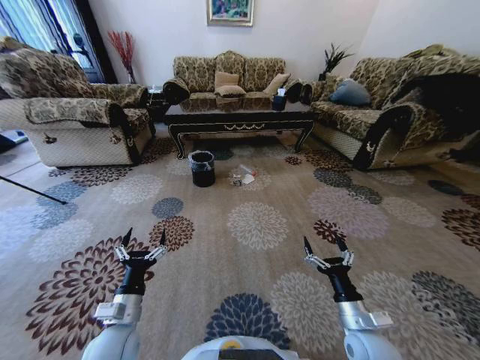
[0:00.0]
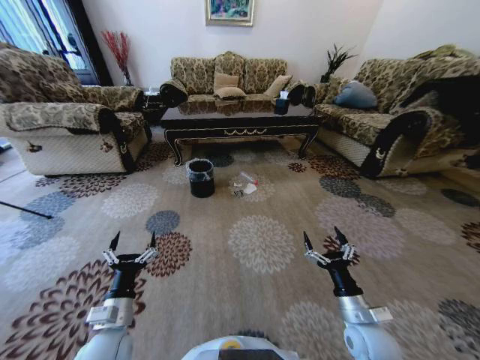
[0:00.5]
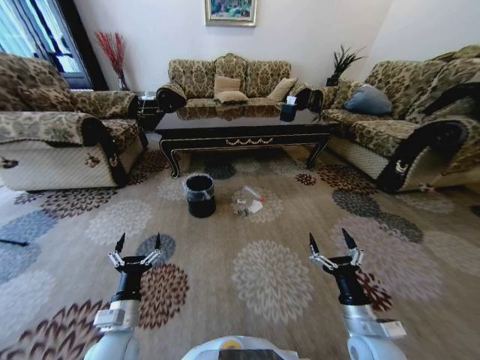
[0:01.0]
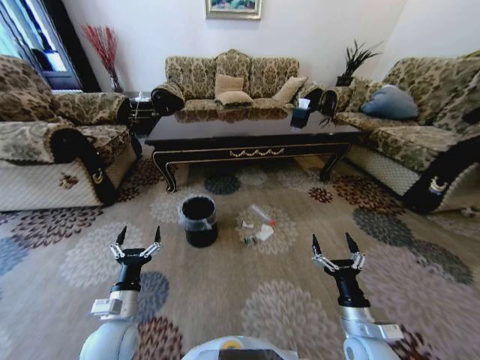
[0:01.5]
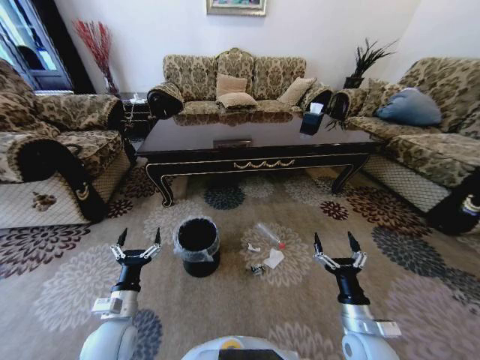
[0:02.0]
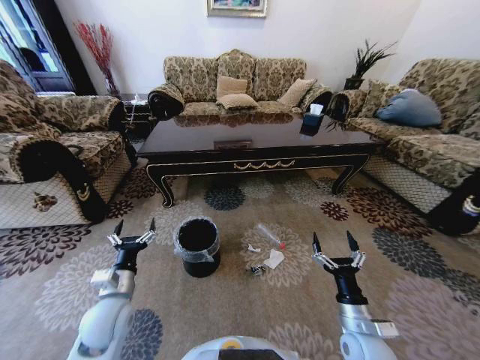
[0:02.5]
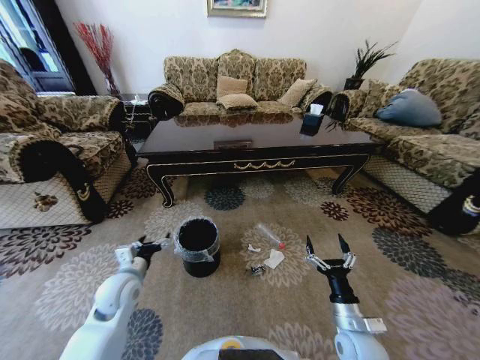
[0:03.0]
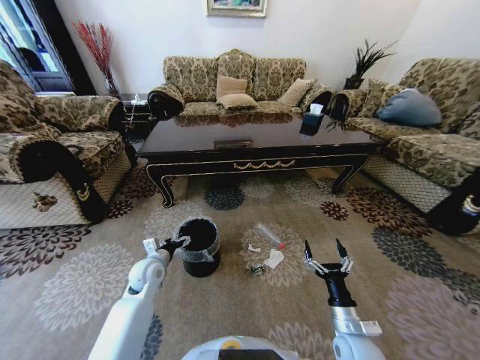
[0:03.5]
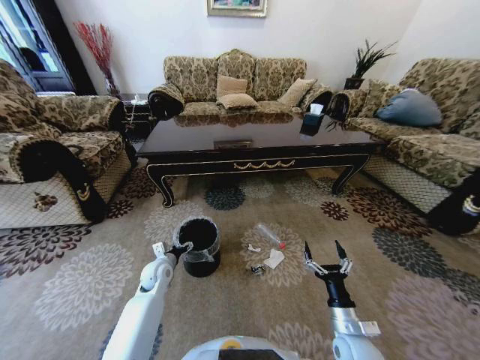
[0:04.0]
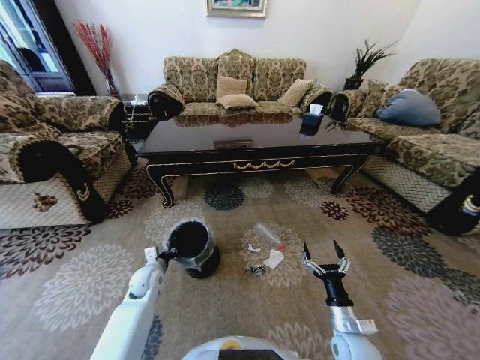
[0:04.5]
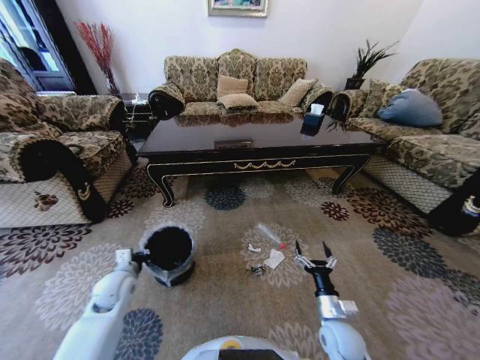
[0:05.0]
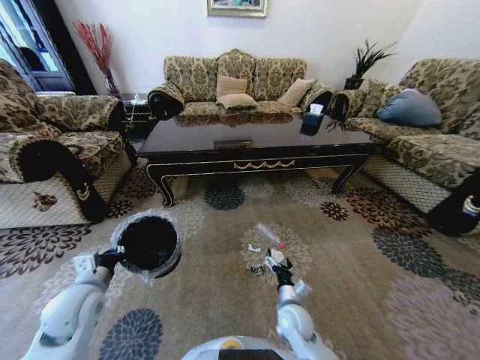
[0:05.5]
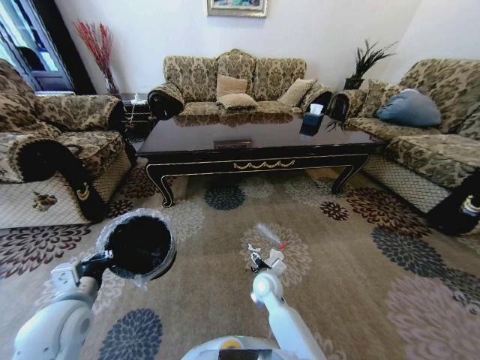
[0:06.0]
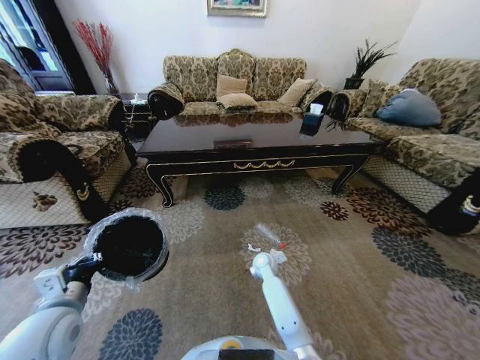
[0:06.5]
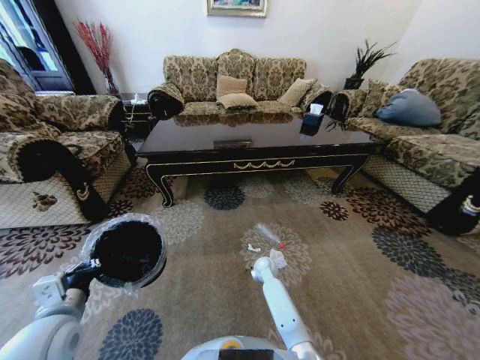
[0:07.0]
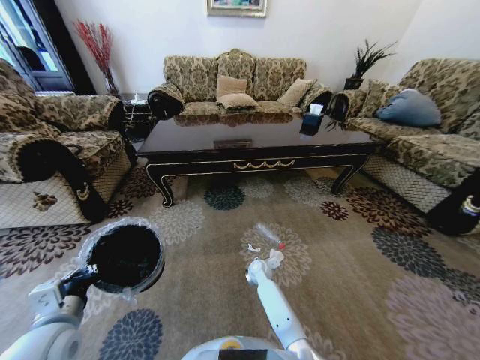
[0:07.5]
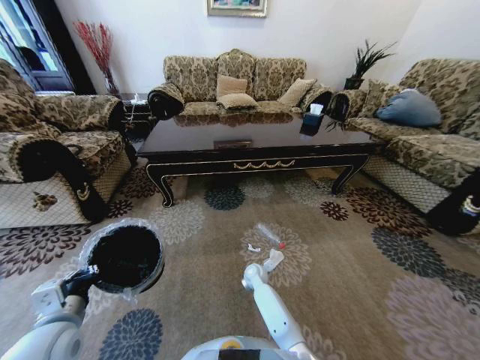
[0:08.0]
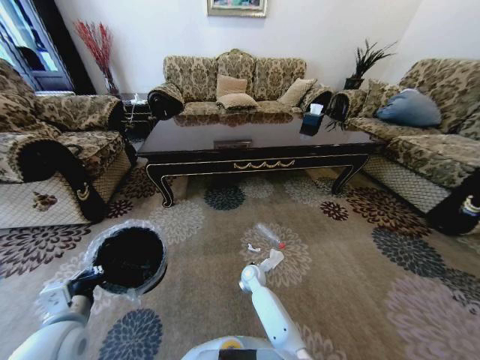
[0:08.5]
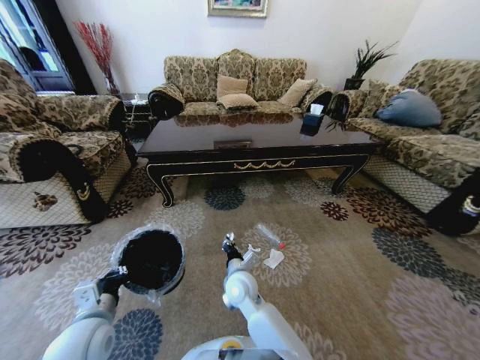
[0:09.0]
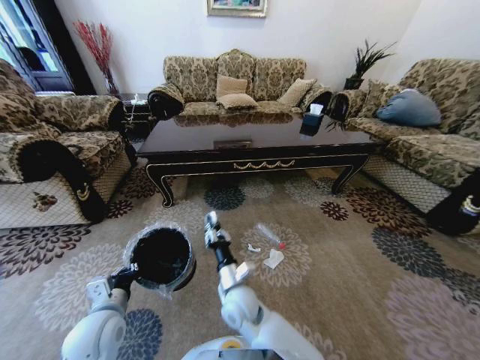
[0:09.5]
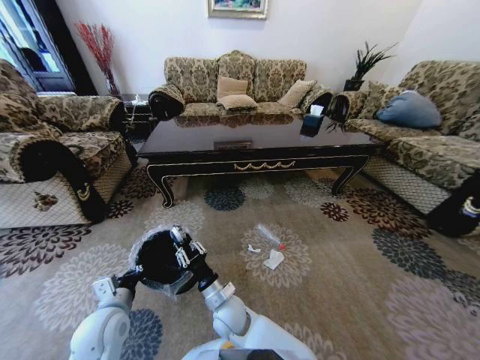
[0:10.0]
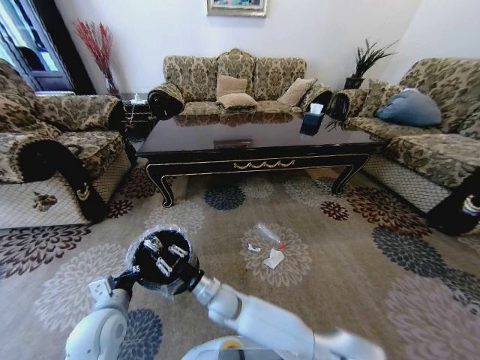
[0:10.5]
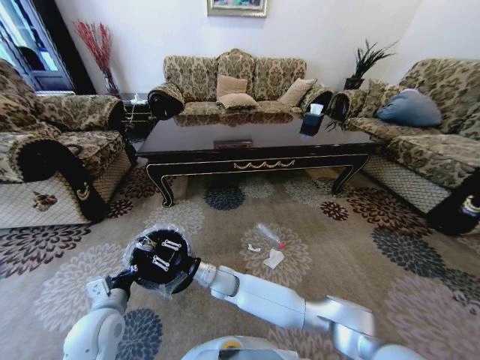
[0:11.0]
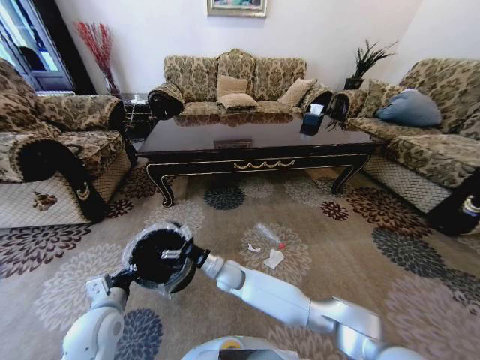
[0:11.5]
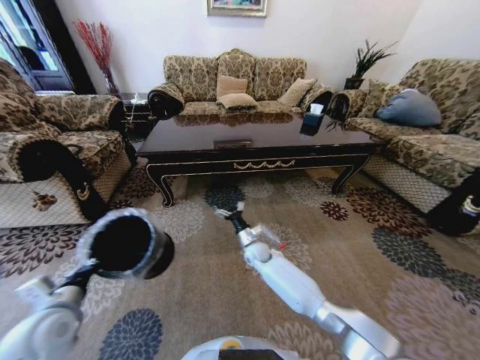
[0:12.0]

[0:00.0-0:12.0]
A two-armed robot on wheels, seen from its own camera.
Task of the whole recording: Move to the front of the table and pick up the trash from the floor, then place it into the trash bin.
2.0 to 4.0 s: The left gripper shifts roughly 20 cm forward.
4.0 to 6.0 s: The right gripper shifts roughly 25 cm to the left and forward, while the left gripper travels backward, upward and to the left by about 25 cm, and closes up.
6.0 to 8.0 s: The right gripper shifts approximately 10 cm downward and forward.
8.0 to 10.0 s: The right gripper travels backward, to the left and upward by some 25 cm, and closes up. Meanwhile the left gripper travels downward by some 5 cm.
10.0 to 12.0 s: The left gripper goes roughly 10 cm to the left and upward, while the right gripper heads forward and to the right, covering approximately 25 cm, and opens up.

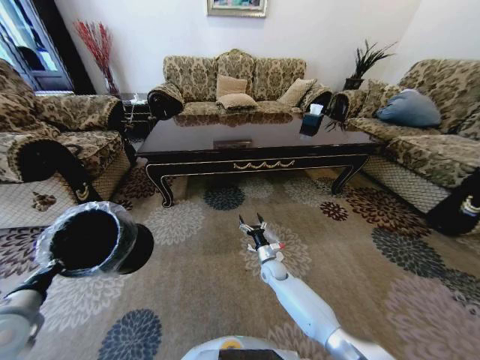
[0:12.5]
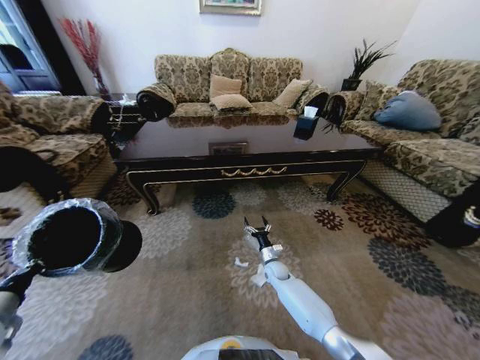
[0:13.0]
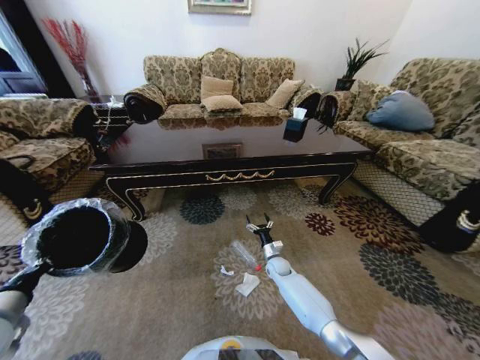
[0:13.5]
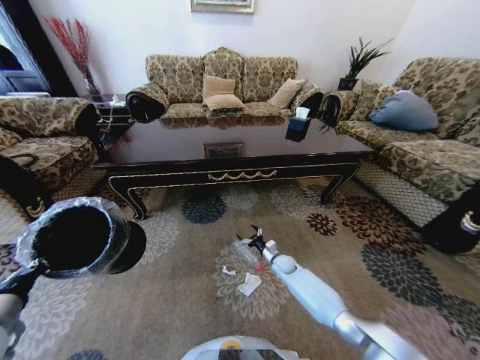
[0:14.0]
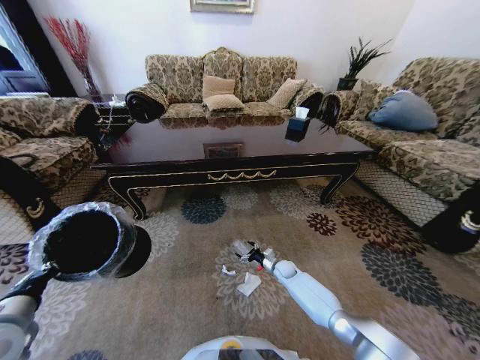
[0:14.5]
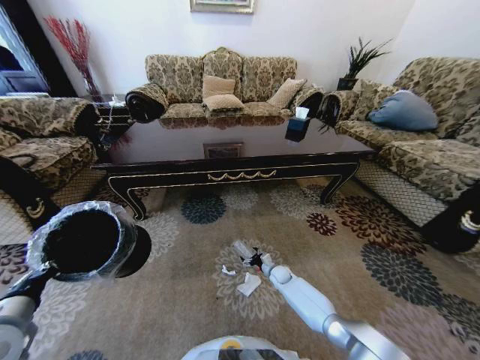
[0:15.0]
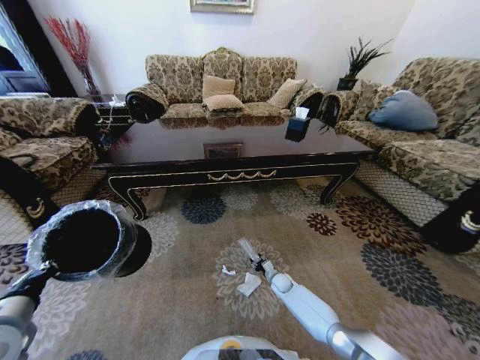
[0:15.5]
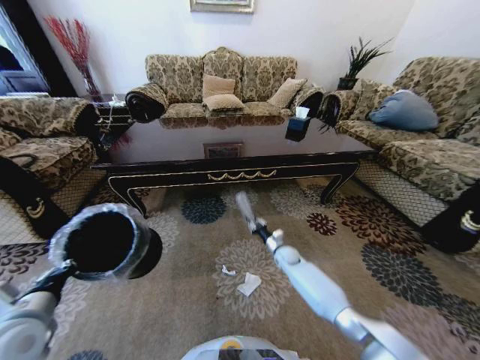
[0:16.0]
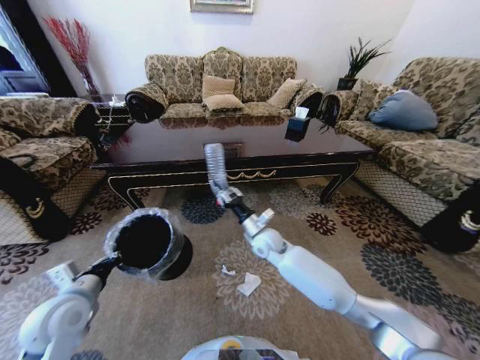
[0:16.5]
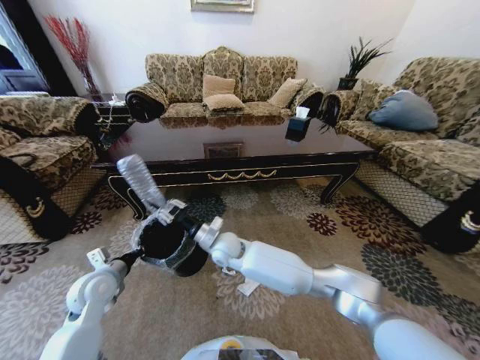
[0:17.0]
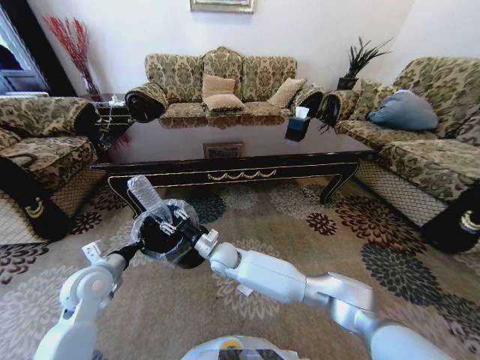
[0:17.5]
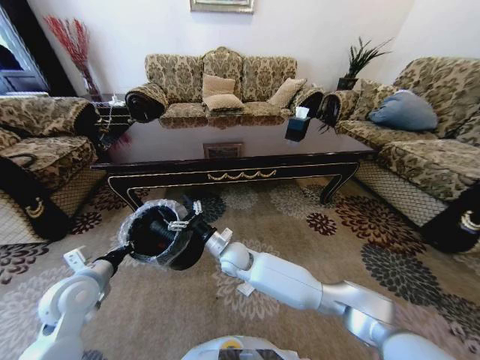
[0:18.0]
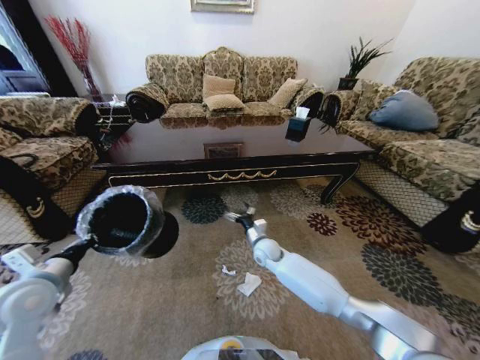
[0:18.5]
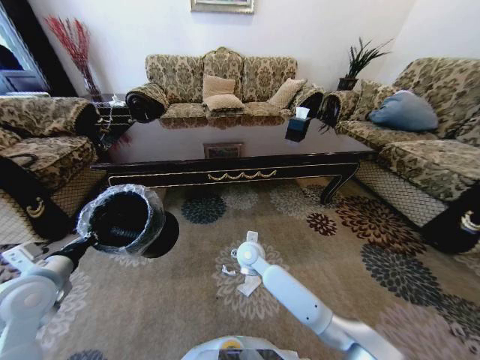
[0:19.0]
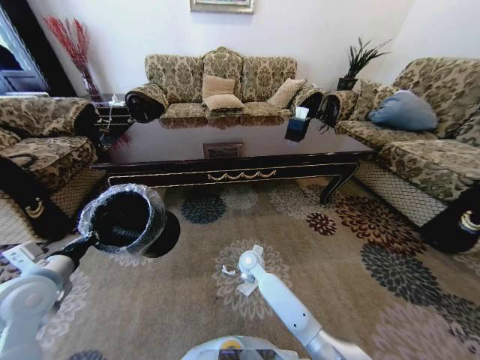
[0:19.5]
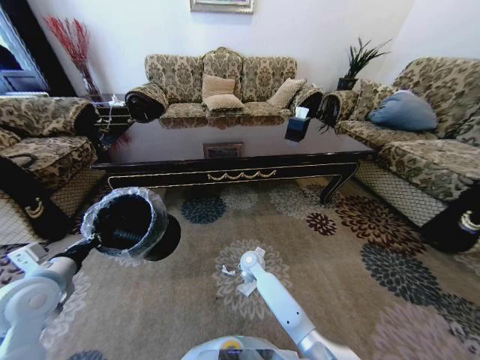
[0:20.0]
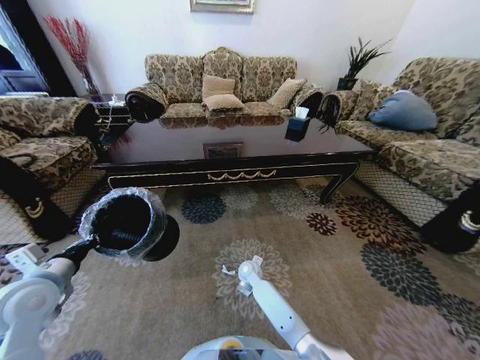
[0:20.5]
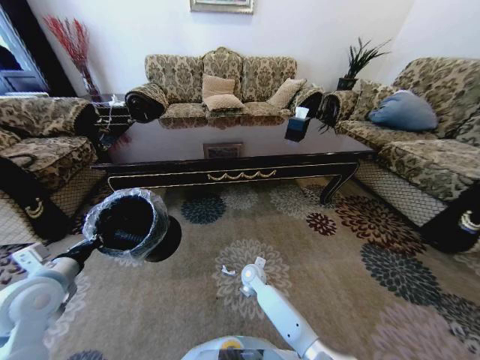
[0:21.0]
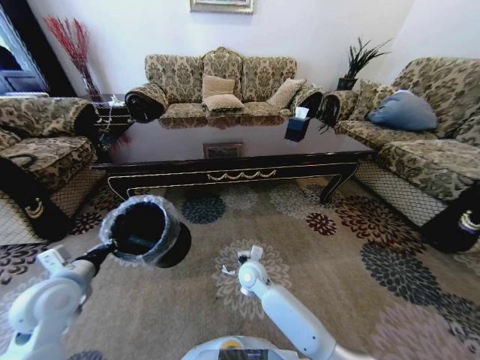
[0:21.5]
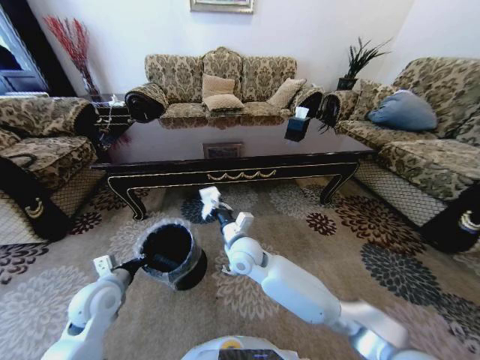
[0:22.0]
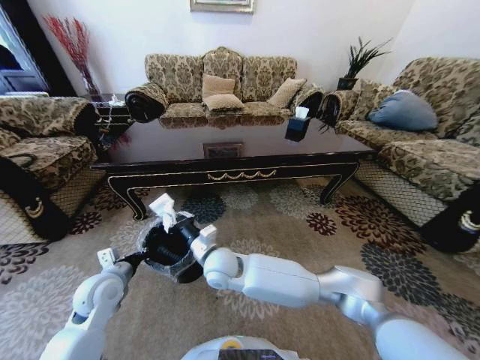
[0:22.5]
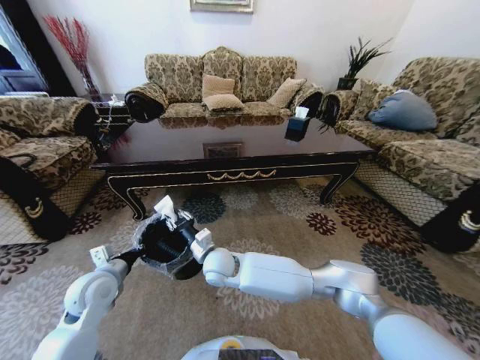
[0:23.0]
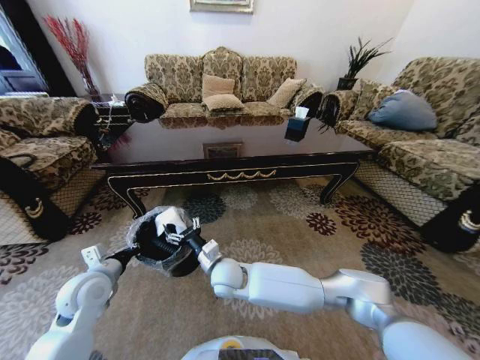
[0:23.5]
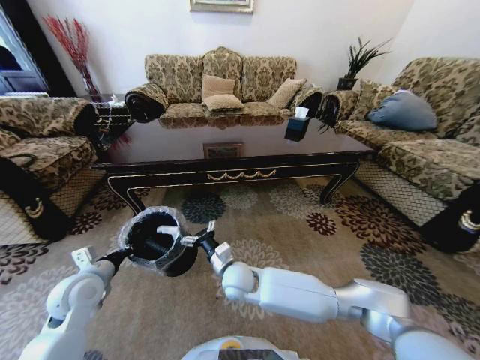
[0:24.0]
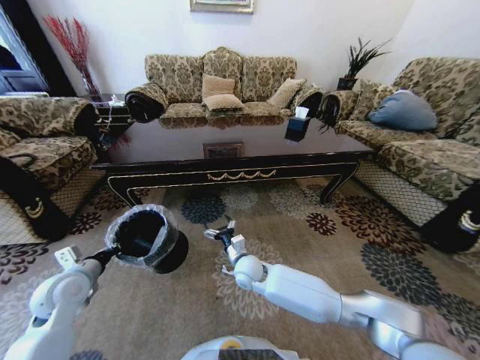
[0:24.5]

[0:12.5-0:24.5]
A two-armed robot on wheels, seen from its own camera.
Task of the whole recording: Move to the front of the table and pick up the trash from the floor, then place it into the trash bin.
12.5 to 14.5 s: The right gripper heads to the right and downward, covering about 10 cm.
14.5 to 16.5 s: The right gripper heads upward and to the left, covering approximately 30 cm, and closes its fingers. Meanwhile the left gripper moves to the right and forward, approximately 10 cm.
16.5 to 18.5 s: The right gripper travels downward by about 5 cm, goes to the left and returns, roughly 15 cm each way, and opens, while the left gripper goes some 5 cm to the left.
18.5 to 20.5 s: The right gripper goes some 10 cm downward and to the left.
20.5 to 22.5 s: The left gripper shifts roughly 10 cm downward and to the right, while the right gripper heads upward and to the left, covering some 25 cm, and closes up.
22.5 to 24.5 s: The right gripper travels downward and to the right by roughly 15 cm, and opens up; the left gripper is displaced to the left by some 5 cm.

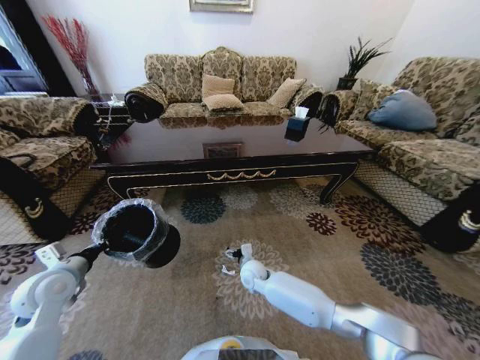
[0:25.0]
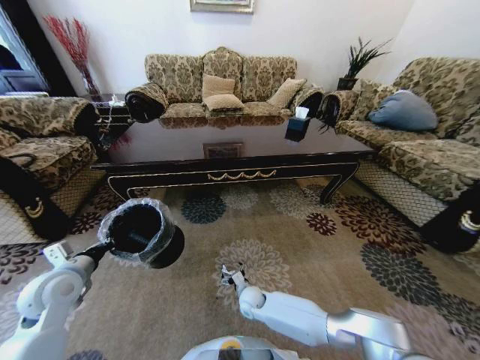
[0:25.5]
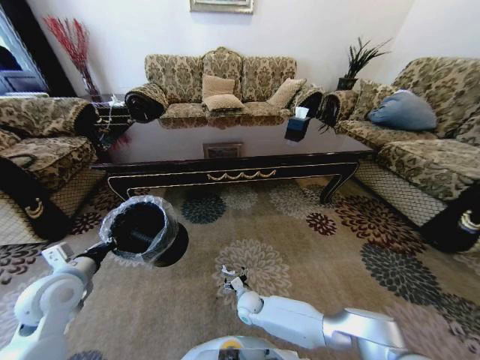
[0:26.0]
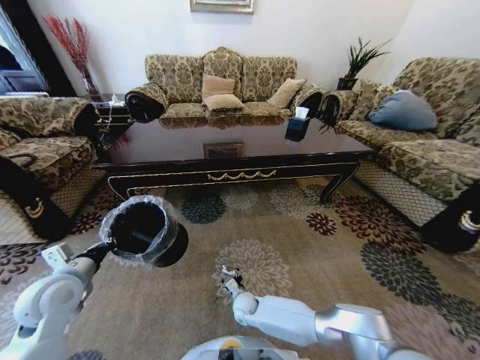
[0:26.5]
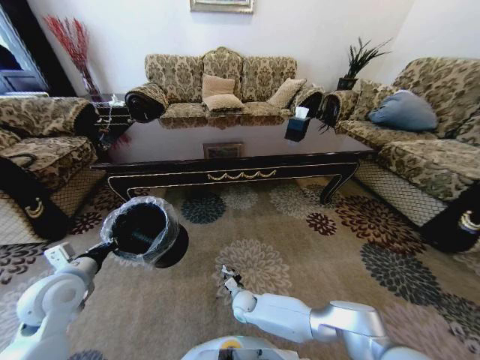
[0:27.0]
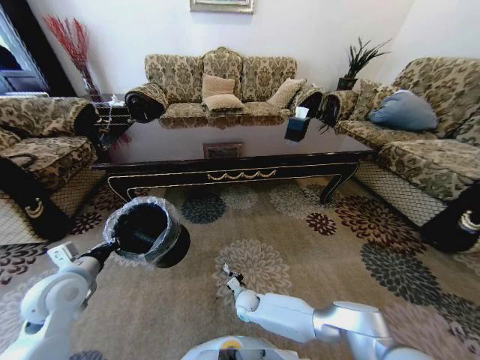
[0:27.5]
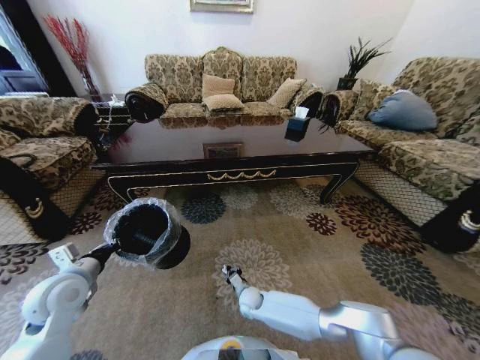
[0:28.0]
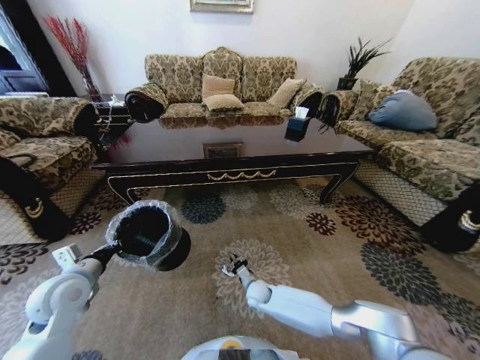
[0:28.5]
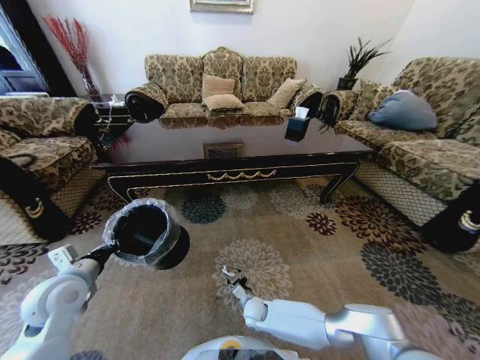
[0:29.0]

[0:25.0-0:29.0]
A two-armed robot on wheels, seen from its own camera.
Task of the whole recording: Move to the front of the table and pick up the trash from the floor, then place it into the trash bin.
25.0 to 27.0 s: The right gripper heads downward and backward, covering some 15 cm, and closes its fingers.
27.0 to 29.0 s: The right gripper closes, then reopens.
